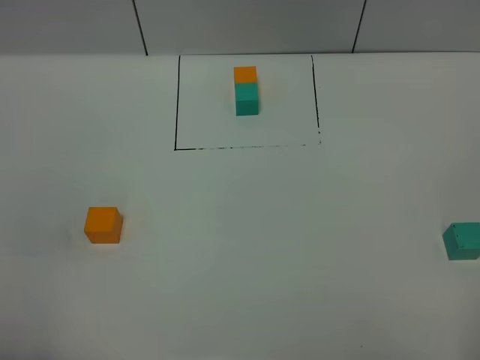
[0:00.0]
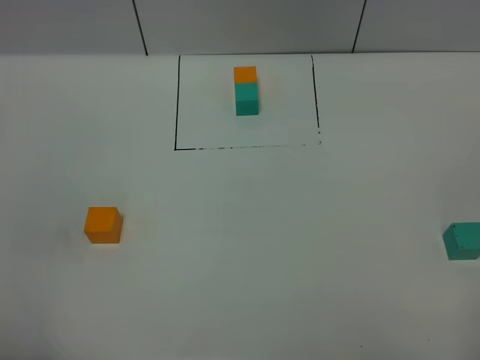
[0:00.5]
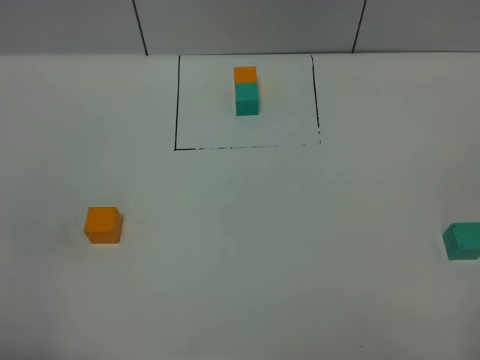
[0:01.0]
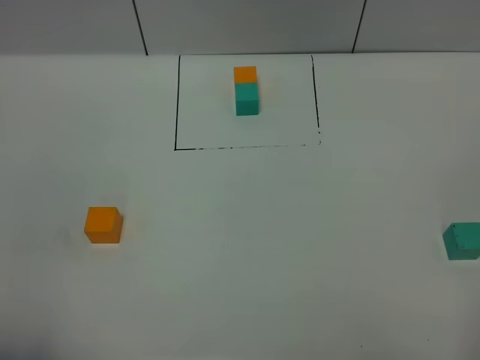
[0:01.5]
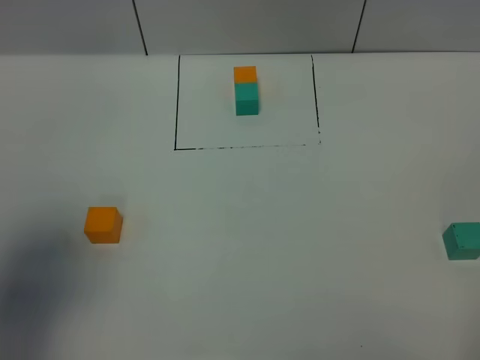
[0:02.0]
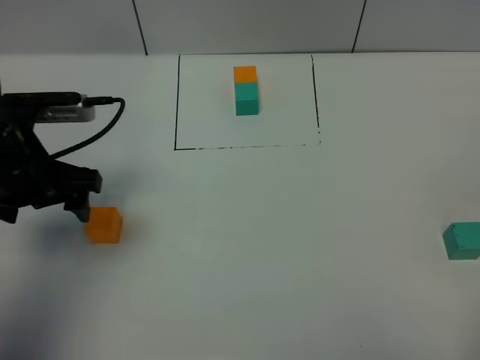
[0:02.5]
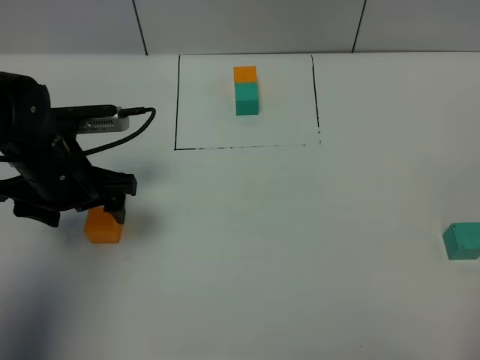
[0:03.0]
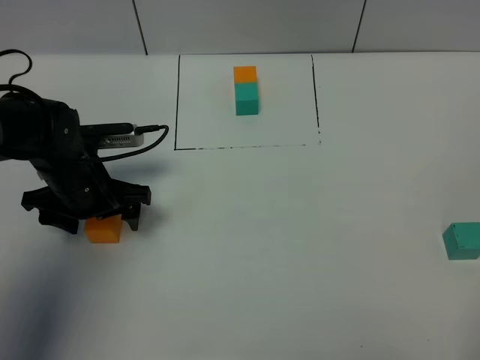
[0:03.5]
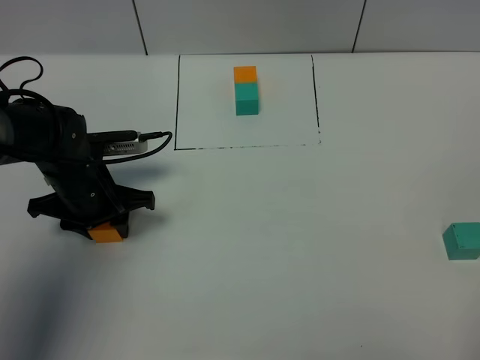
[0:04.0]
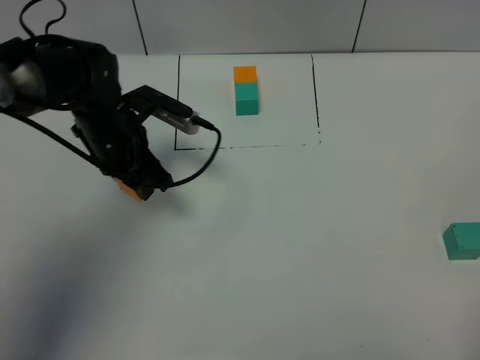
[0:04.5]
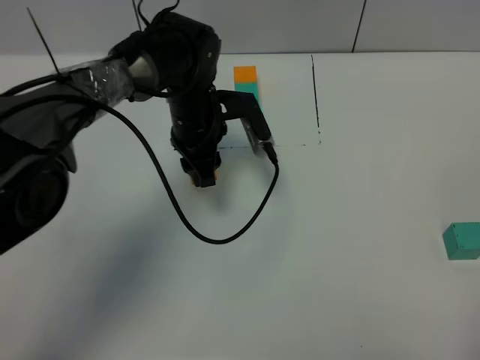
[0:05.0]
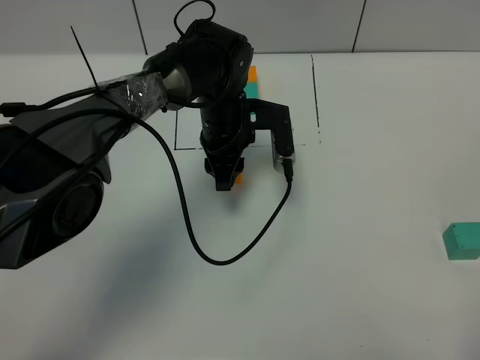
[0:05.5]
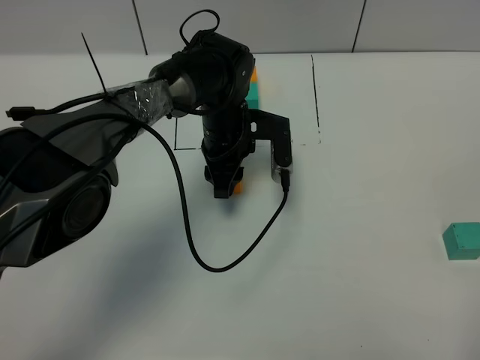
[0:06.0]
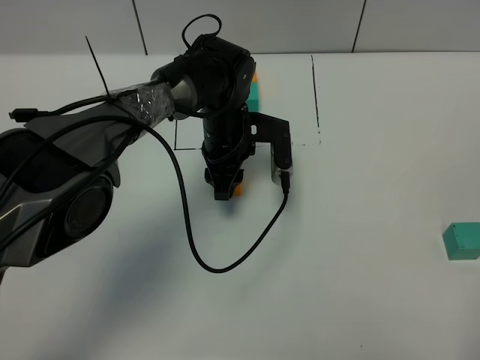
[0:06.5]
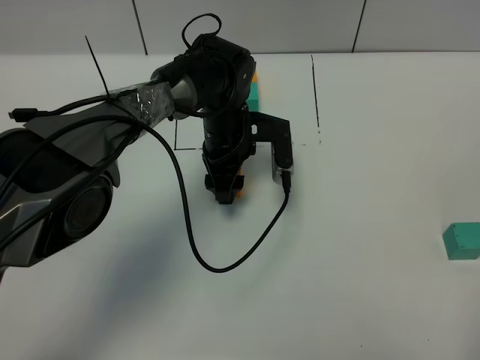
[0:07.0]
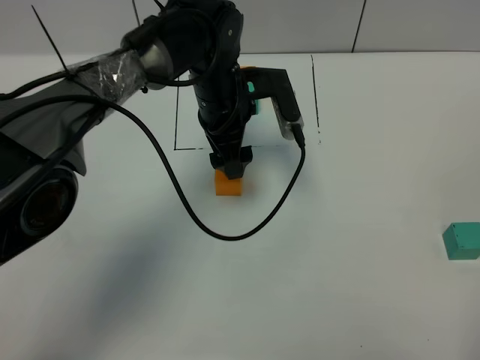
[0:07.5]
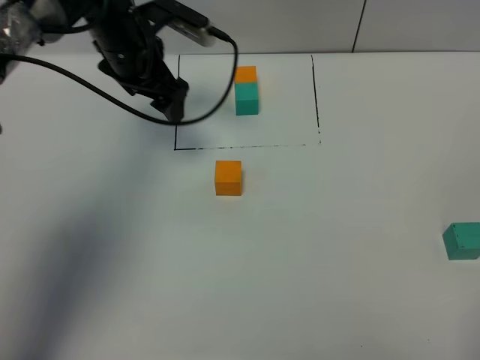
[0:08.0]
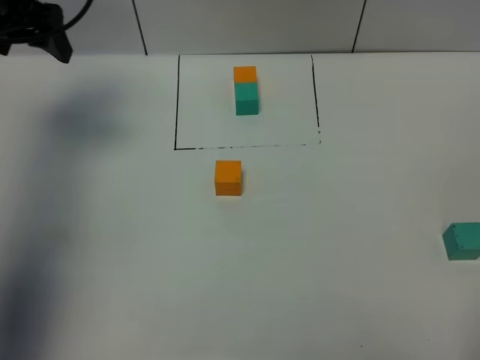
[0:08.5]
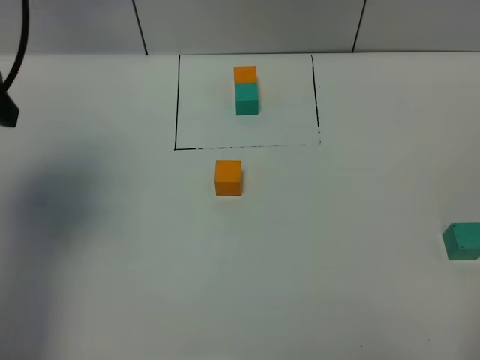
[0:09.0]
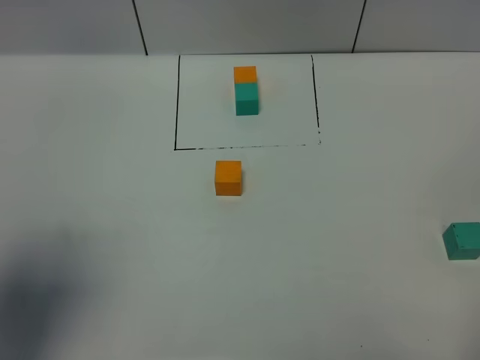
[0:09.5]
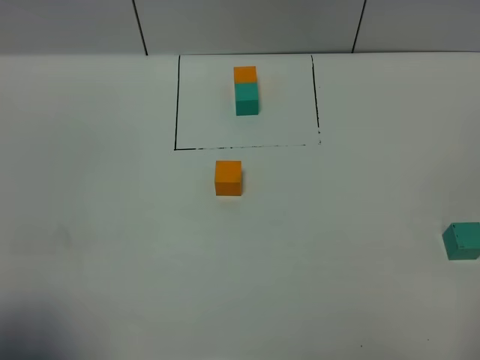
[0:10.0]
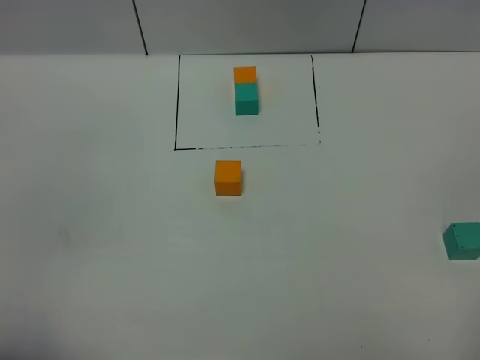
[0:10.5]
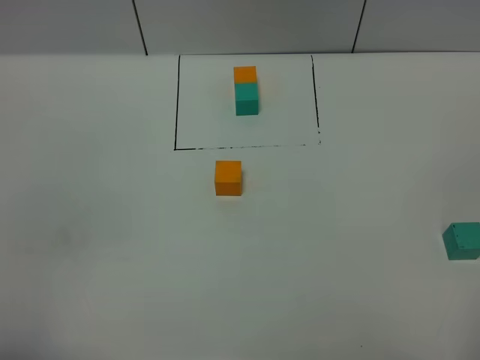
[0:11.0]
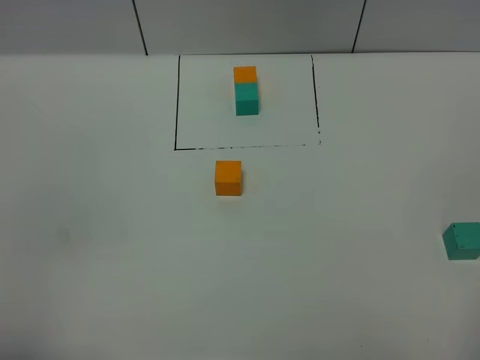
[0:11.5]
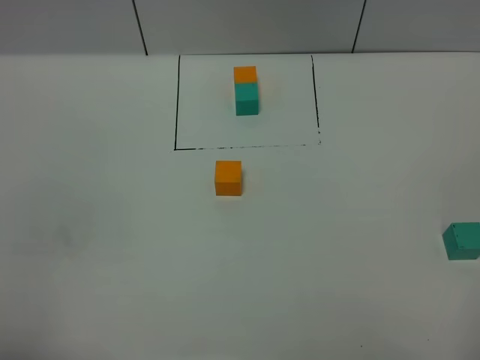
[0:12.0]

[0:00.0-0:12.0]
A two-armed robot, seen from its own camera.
Task of the whole recording: According to the building block template in front, assemble the scattered blocks together.
Step, 0:02.5 to 0:07.5: Put the orange cube in the center of the table.
0:00.0 to 0:02.0: The left gripper is displaced forward by about 20 cm.
0:02.0 to 0:04.0: The left gripper shifts roughly 25 cm downward, forward and to the right, and closes up.
0:04.0 to 0:06.0: The left gripper shifts about 20 cm to the right and forward.
0:06.0 to 0:08.0: The left gripper moves to the left and upward, roughly 20 cm, and opens its fingers.
0:08.0 to 0:10.0: The left gripper goes approximately 40 cm backward.
0:10.0 to 0:12.0: The left gripper shifts by approximately 5 cm.

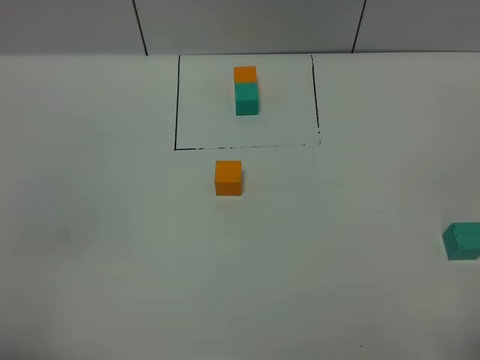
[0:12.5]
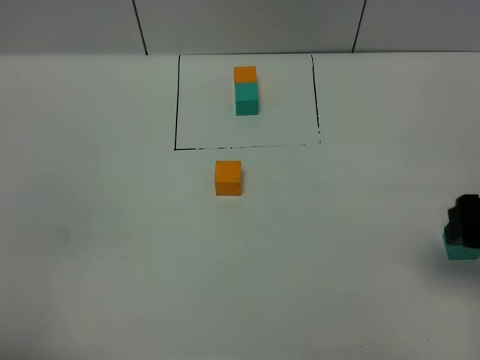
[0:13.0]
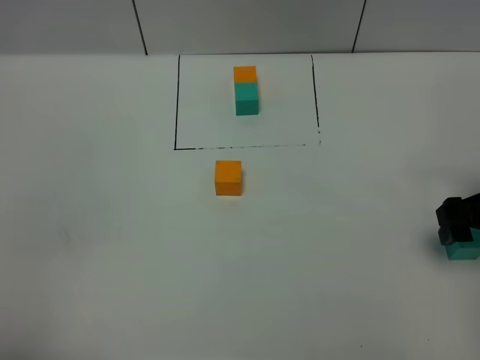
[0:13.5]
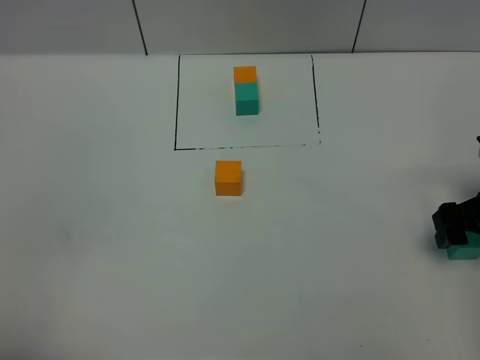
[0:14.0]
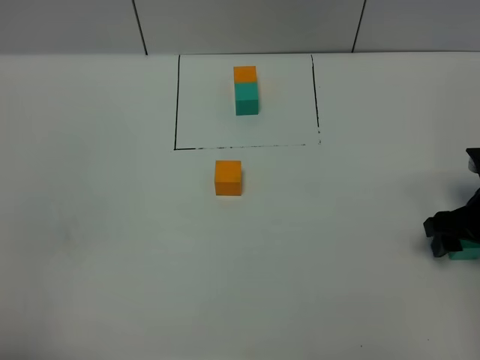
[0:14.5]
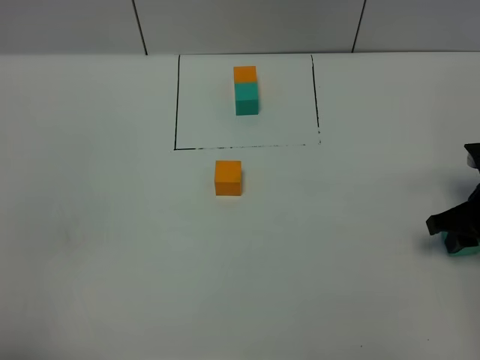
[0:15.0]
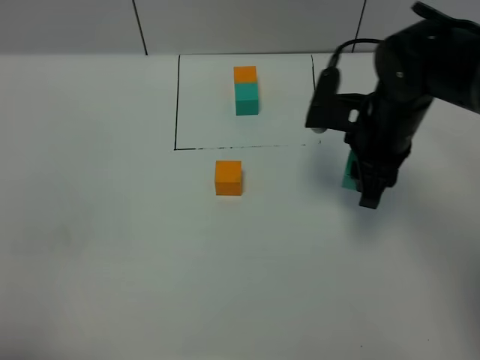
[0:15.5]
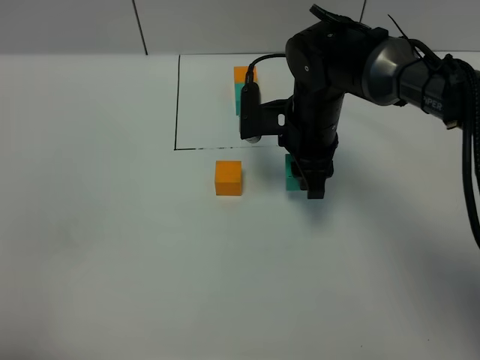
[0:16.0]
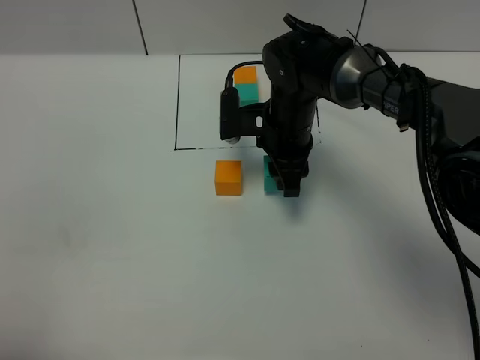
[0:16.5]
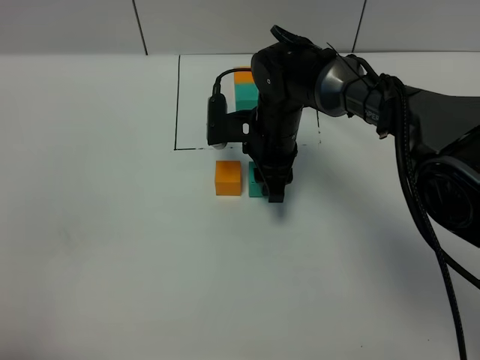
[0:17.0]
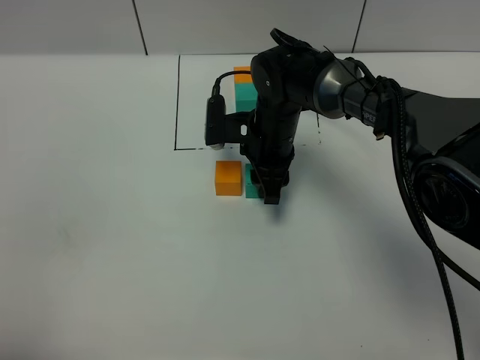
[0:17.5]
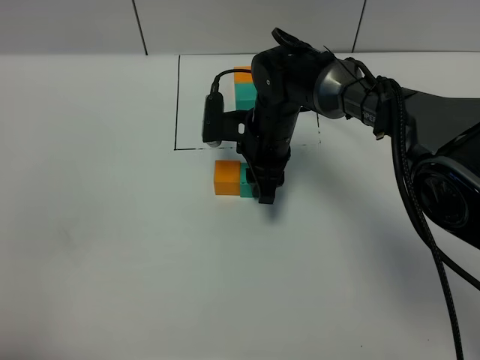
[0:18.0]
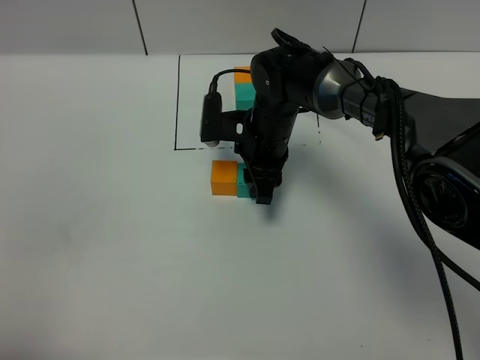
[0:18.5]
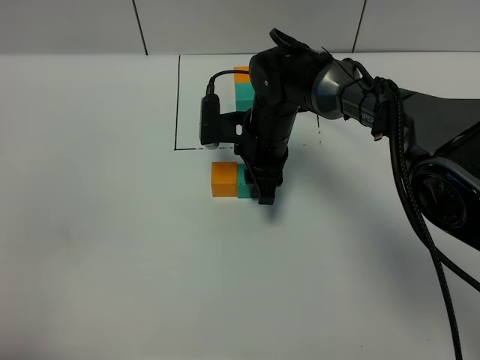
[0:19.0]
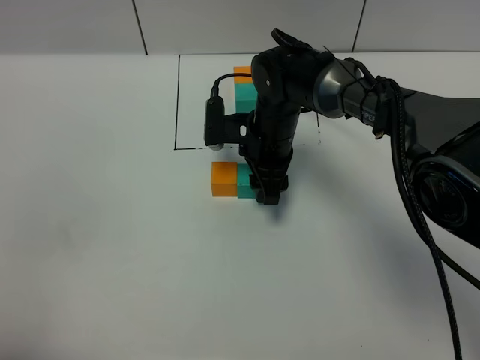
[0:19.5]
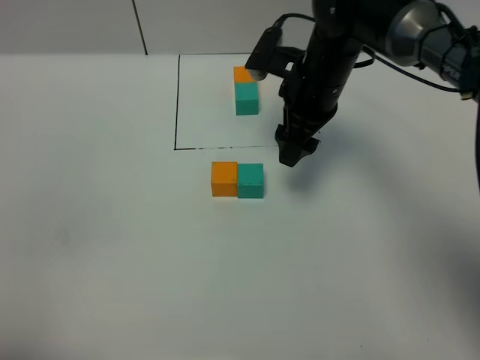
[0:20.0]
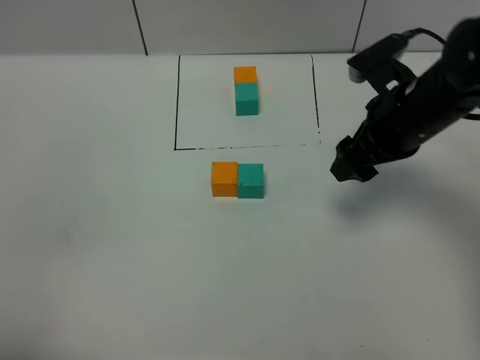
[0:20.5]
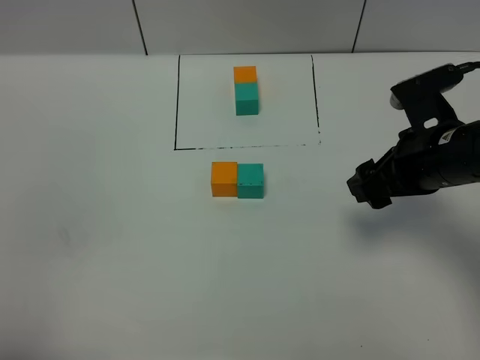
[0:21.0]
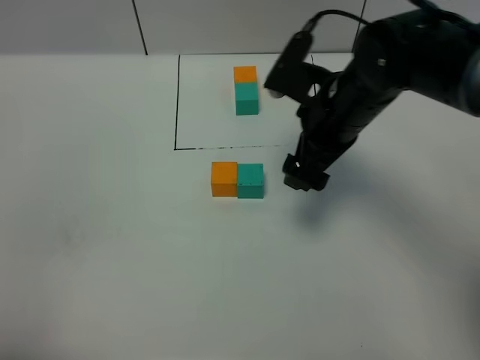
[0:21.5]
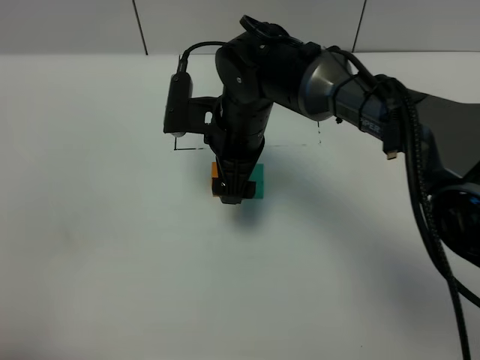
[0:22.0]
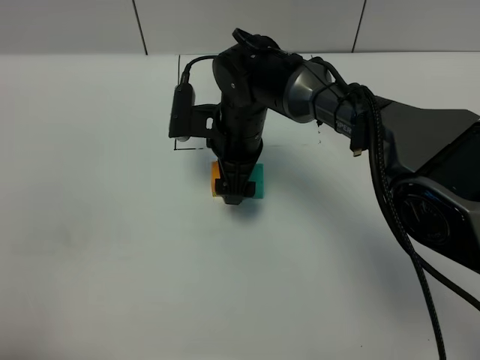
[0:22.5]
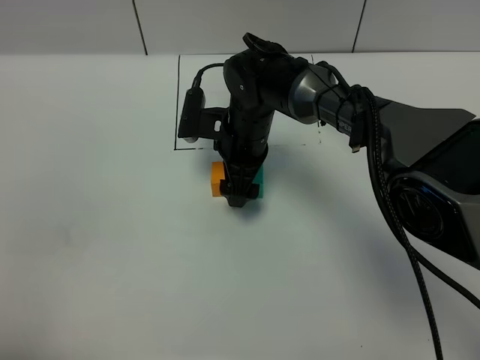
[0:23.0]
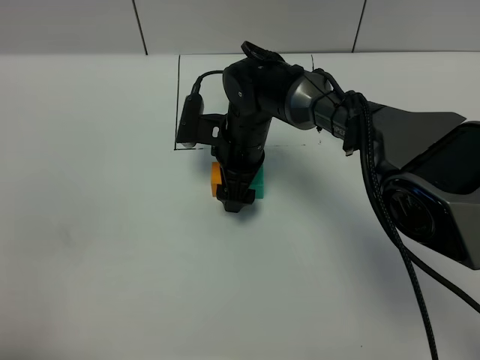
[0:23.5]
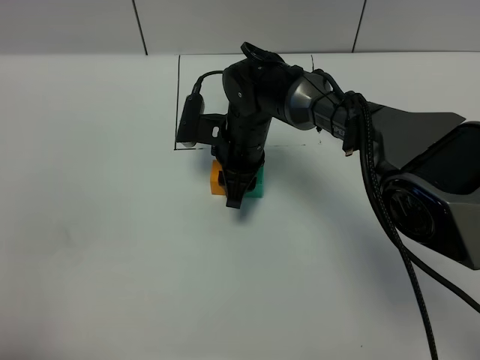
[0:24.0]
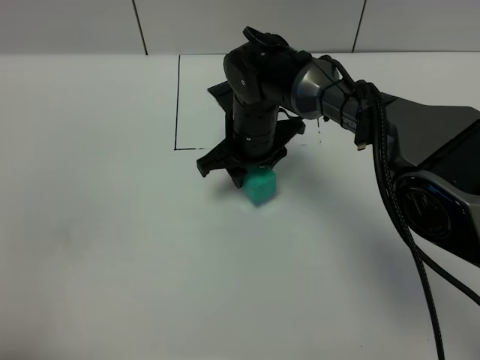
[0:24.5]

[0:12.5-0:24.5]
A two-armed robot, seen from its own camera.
Task of the whole recording: According to the building block template in front, assemble the scattered blocks together.
Step, 0:12.5 to 0:20.0: Put the green cube on the right of the orange cube.
0:12.5 to 0:14.5: The right gripper is displaced forward and downward by about 30 cm.
0:14.5 to 0:16.5: The right gripper is displaced to the left and forward by roughly 30 cm, and closes up.
0:16.5 to 0:18.5: The grippers move only a little.
0:18.5 to 0:20.5: The right gripper shifts roughly 20 cm to the right, upward and backward, and opens up.
0:20.5 to 0:22.5: The right gripper goes approximately 20 cm to the left.
0:22.5 to 0:24.5: The right gripper closes up.

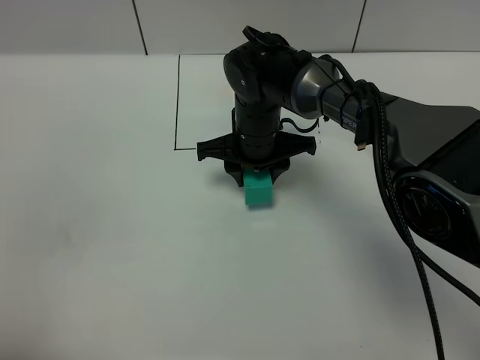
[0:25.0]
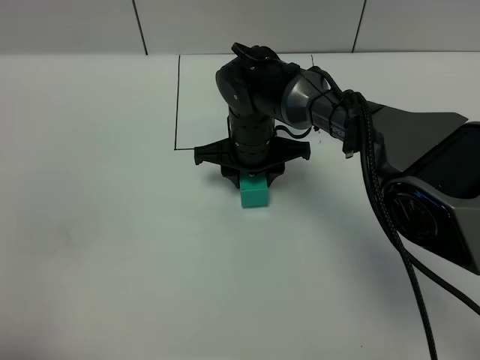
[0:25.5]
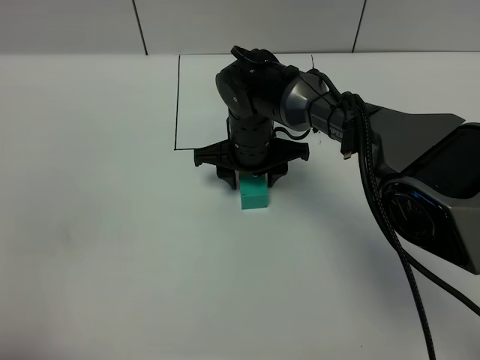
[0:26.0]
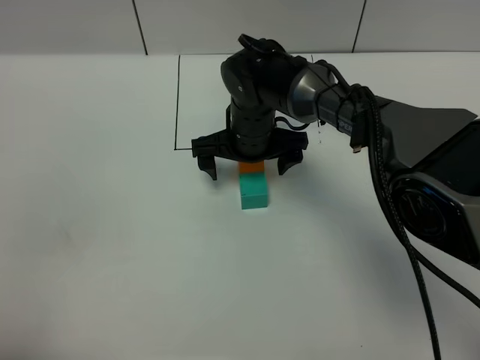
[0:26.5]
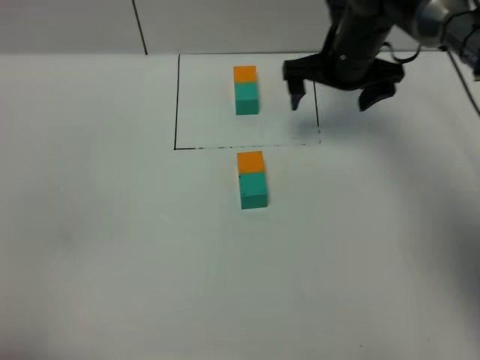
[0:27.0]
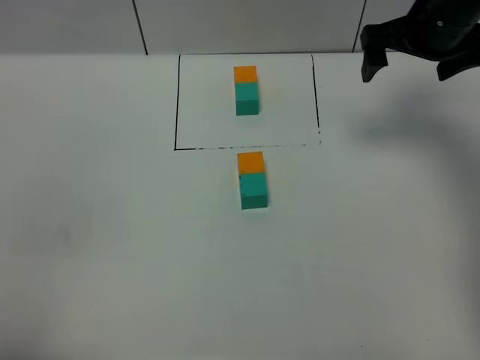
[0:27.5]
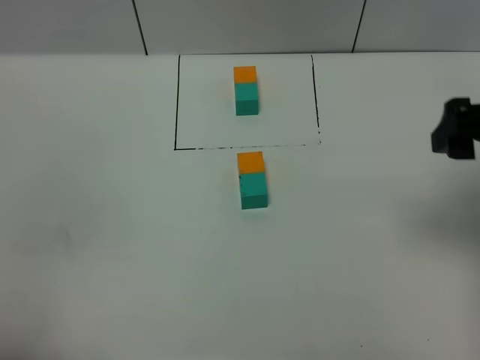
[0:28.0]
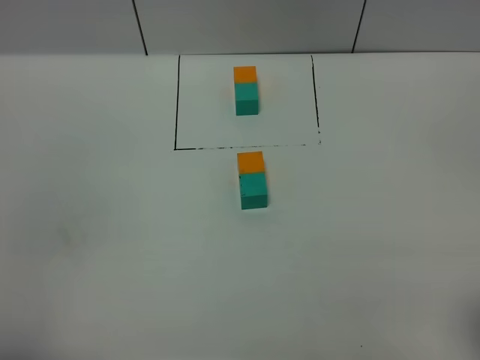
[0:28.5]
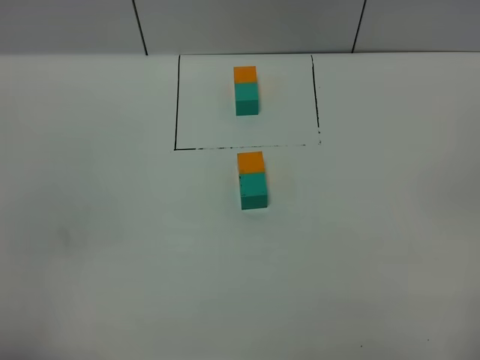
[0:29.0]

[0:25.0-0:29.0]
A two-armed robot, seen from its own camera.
Task of the whole recording: According to the building block template in front, assemble the scattered blocks together.
0:25.0 to 0:27.0: The right gripper shifts approximately 15 cm to the right, upward and forward, and opens.
0:27.0 to 0:29.0: The right gripper is displaced backward by about 40 cm.
